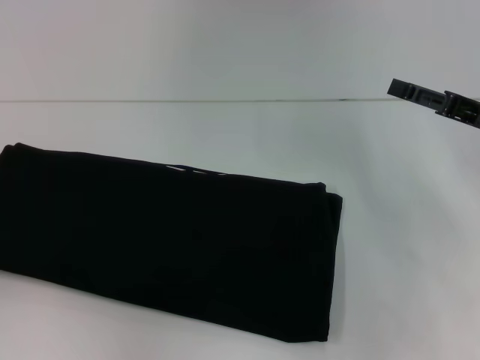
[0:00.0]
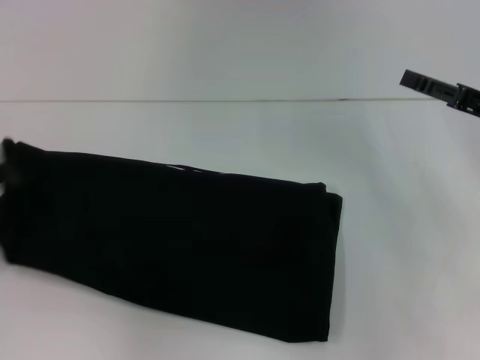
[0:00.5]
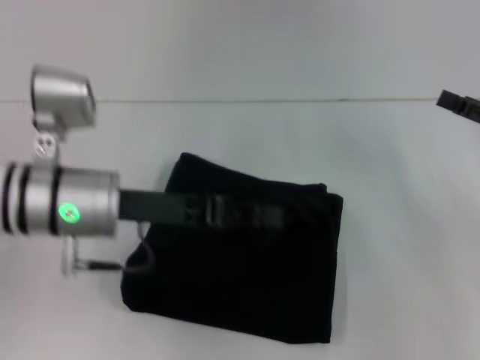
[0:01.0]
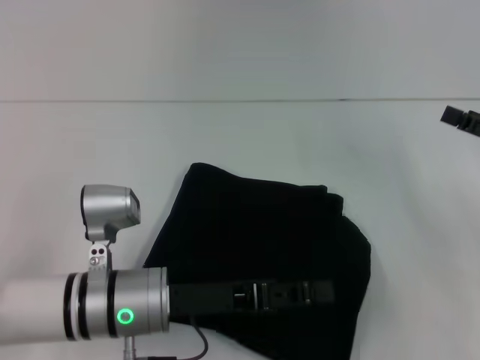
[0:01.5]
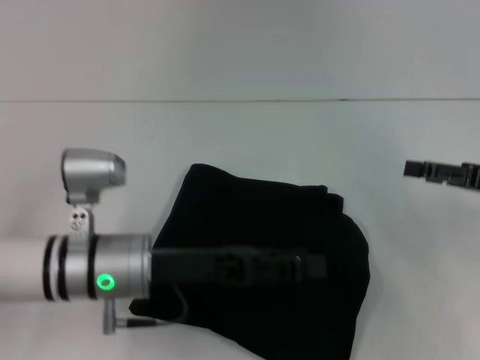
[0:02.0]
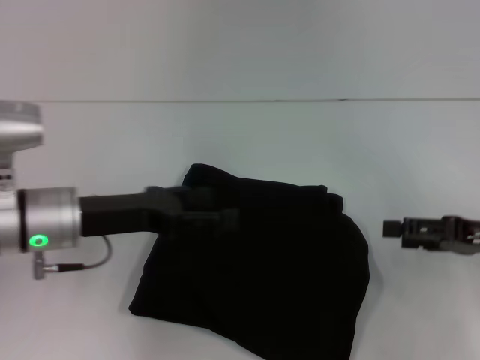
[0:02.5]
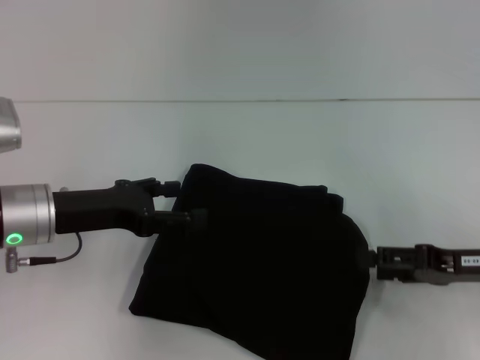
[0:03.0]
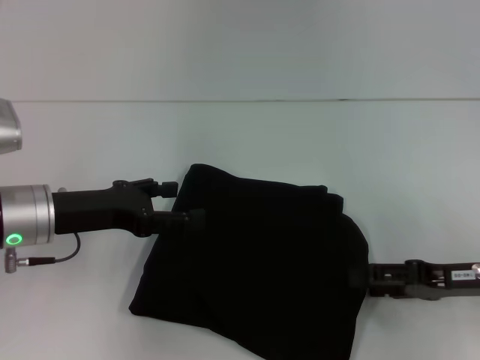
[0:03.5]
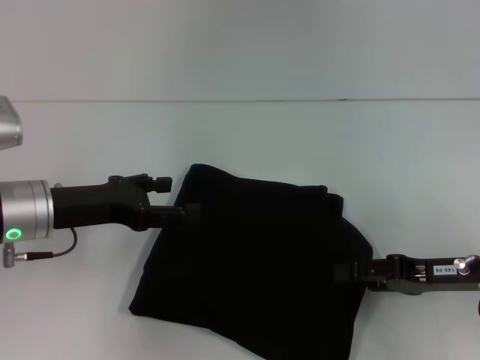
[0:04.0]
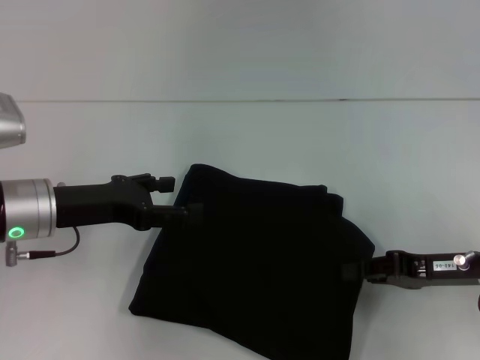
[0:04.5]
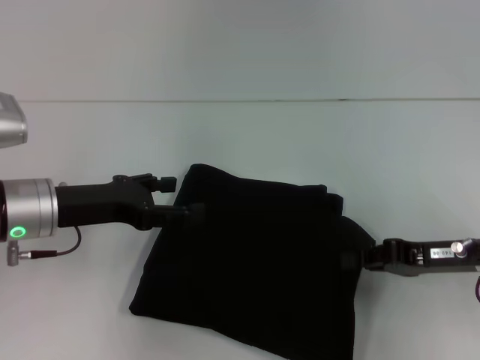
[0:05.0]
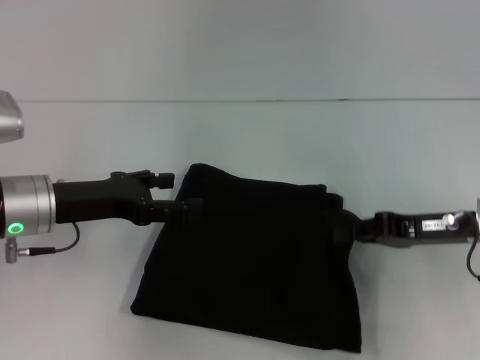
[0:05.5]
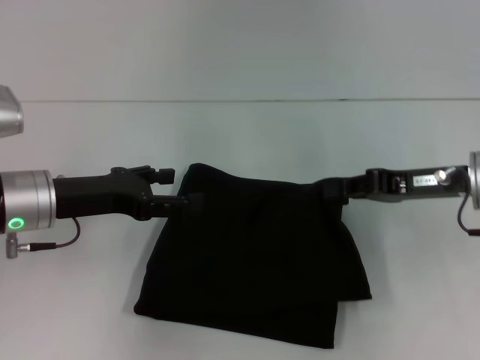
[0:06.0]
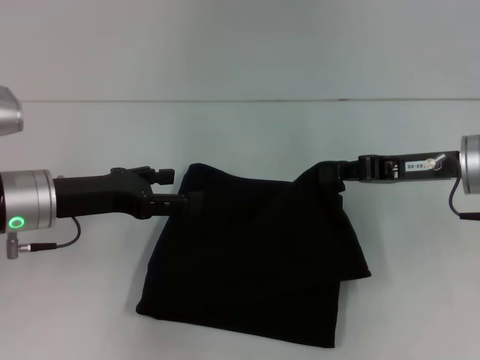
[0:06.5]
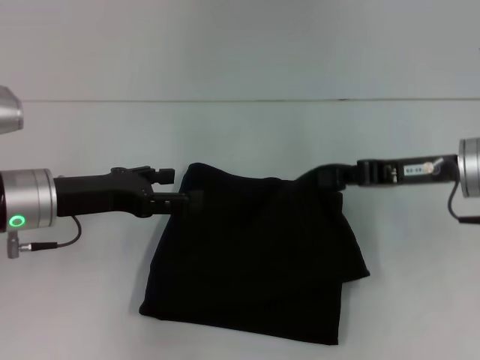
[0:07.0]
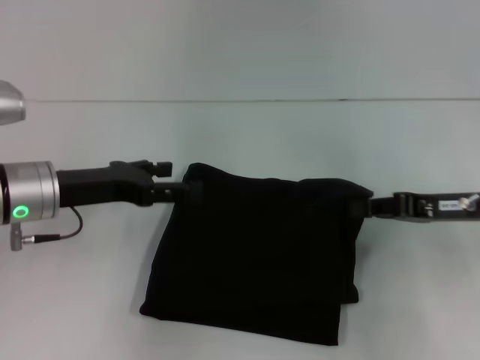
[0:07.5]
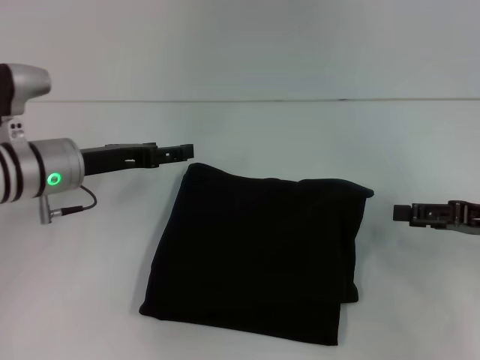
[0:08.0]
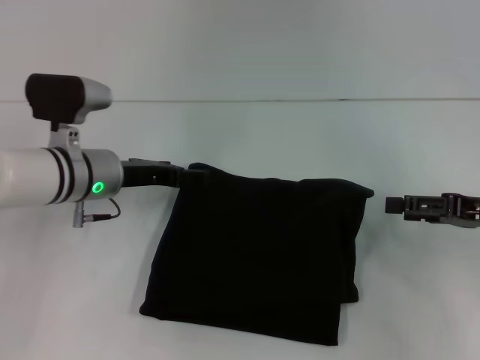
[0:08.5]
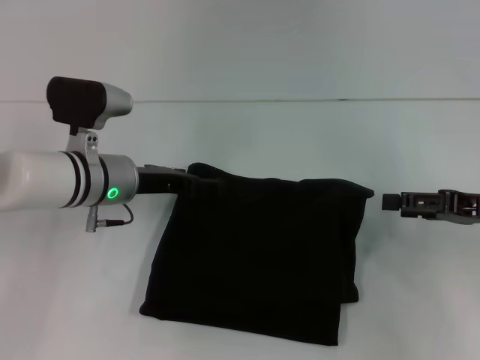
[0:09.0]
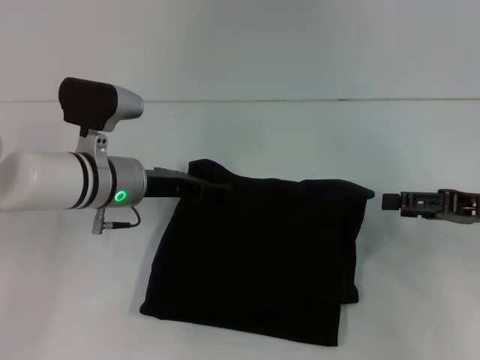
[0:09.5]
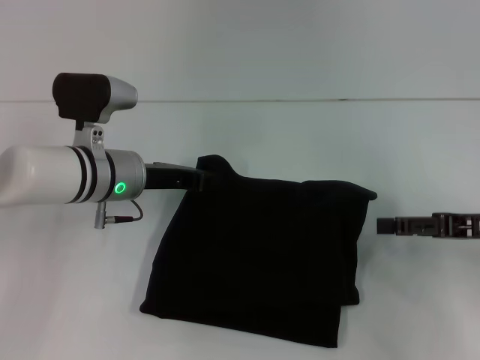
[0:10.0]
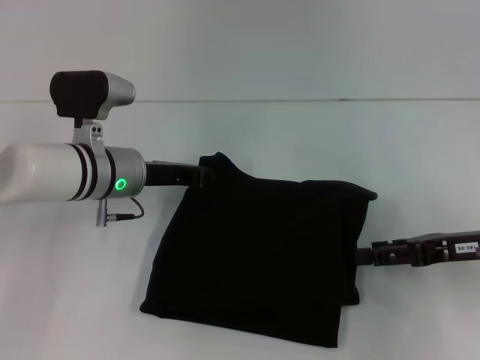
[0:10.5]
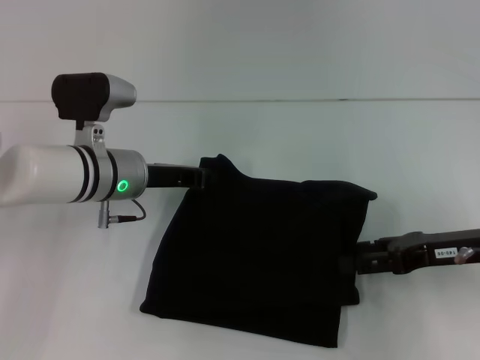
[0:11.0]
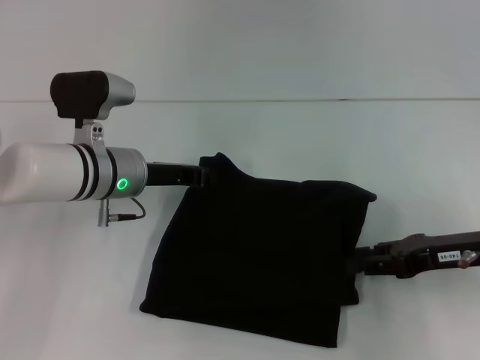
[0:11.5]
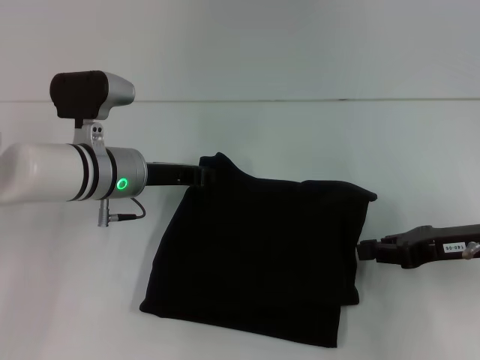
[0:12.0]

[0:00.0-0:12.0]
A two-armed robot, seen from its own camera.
0:00.0 to 0:02.0: The left gripper is displaced to the right by roughly 25 cm, and opens up.
0:02.0 to 0:04.0: The two grippers go about 10 cm to the left. The left gripper opens.
0:04.0 to 0:06.0: The right gripper shifts about 10 cm forward and upward, and closes its fingers.
0:06.0 to 0:08.0: The left gripper changes place by approximately 5 cm; the right gripper moves to the right, some 10 cm, and opens.
0:08.0 to 0:10.0: The right gripper opens. Meanwhile the left gripper shifts about 5 cm to the right, and closes.
0:10.0 to 0:12.0: The left gripper closes up, while the right gripper closes.

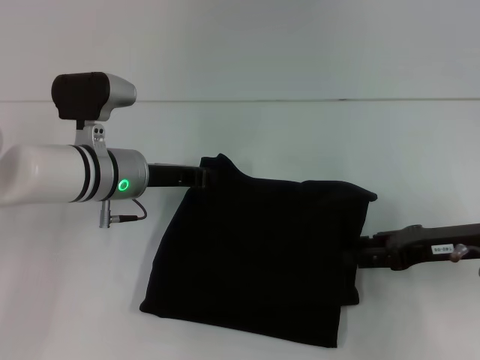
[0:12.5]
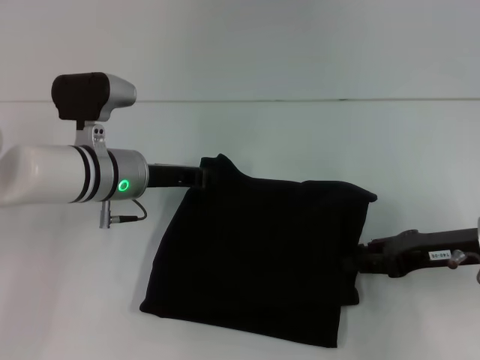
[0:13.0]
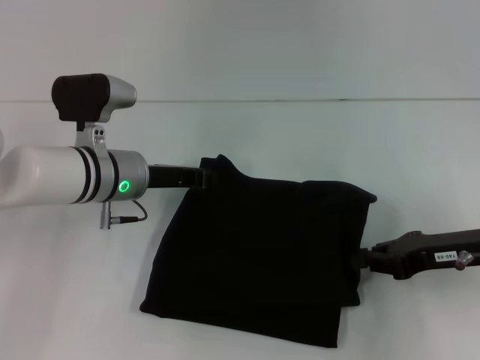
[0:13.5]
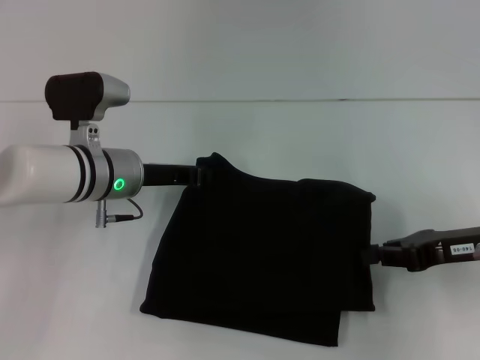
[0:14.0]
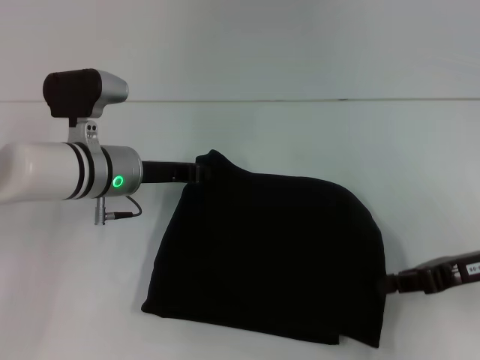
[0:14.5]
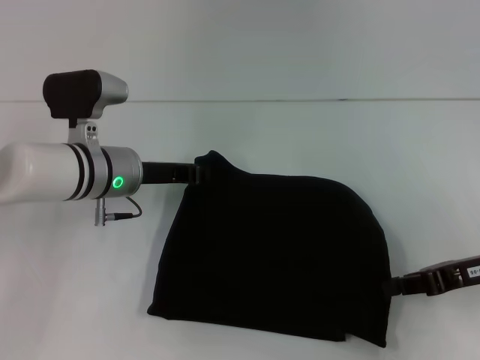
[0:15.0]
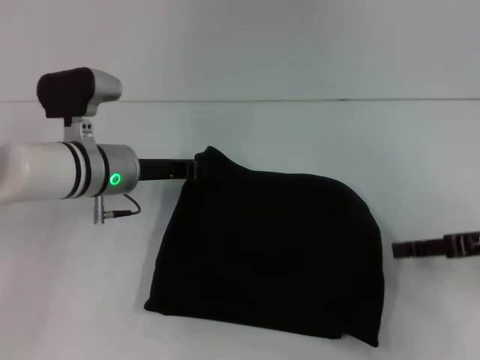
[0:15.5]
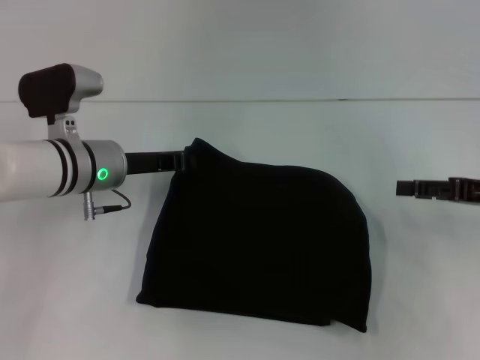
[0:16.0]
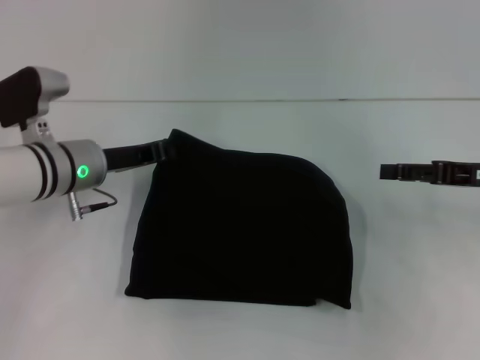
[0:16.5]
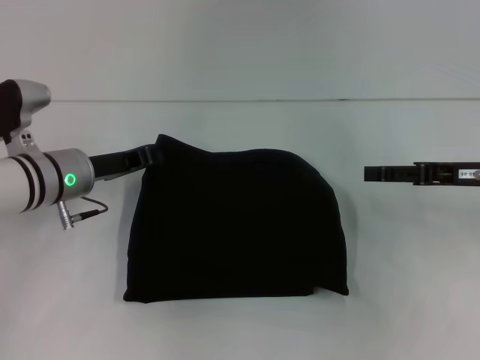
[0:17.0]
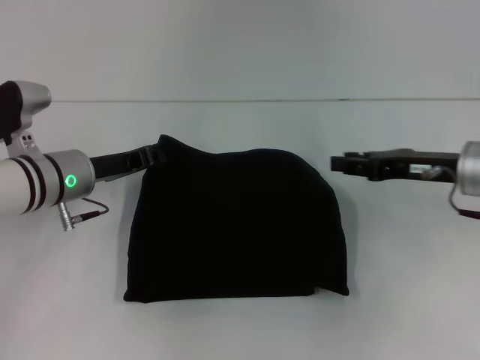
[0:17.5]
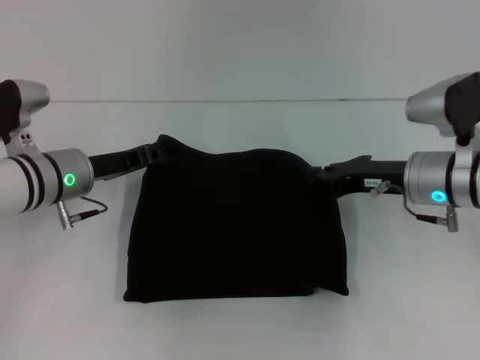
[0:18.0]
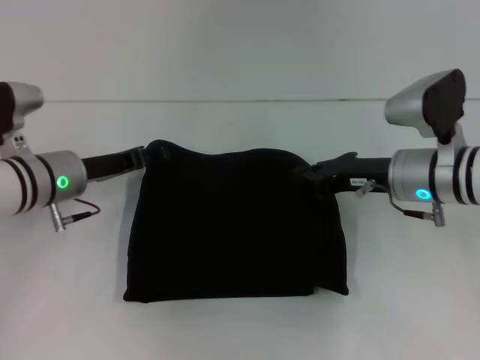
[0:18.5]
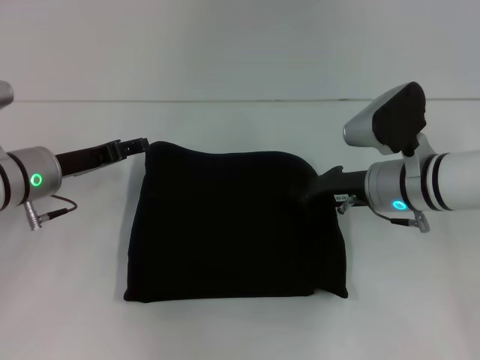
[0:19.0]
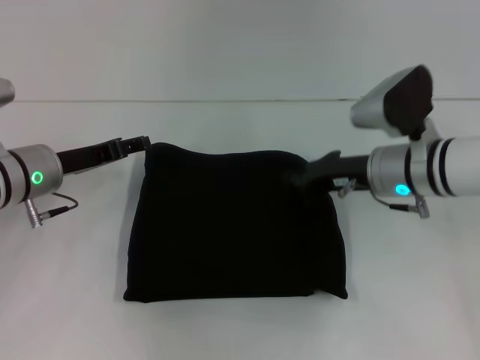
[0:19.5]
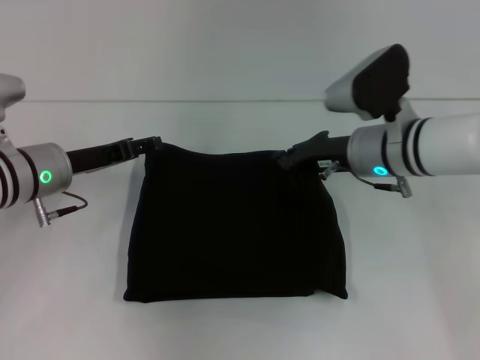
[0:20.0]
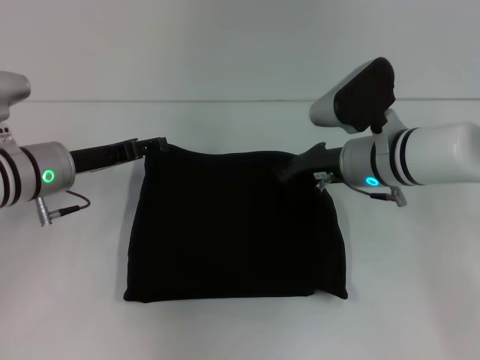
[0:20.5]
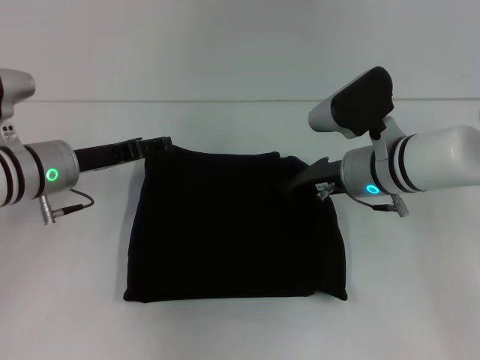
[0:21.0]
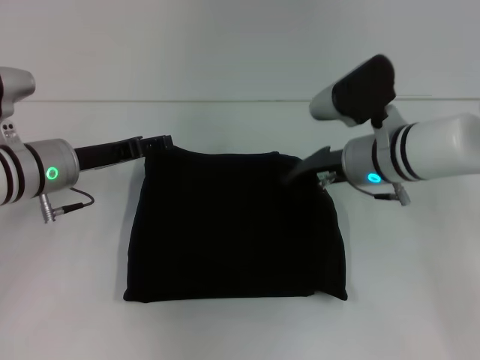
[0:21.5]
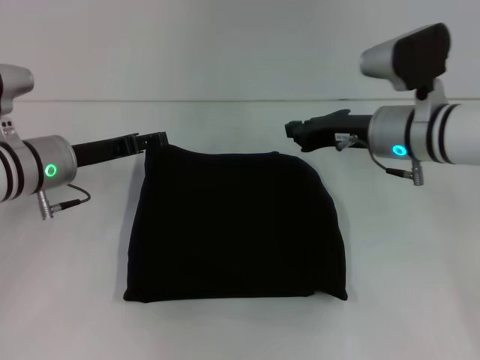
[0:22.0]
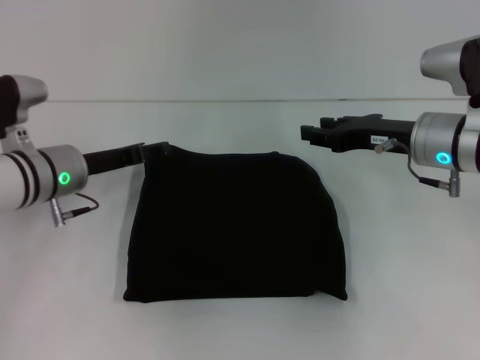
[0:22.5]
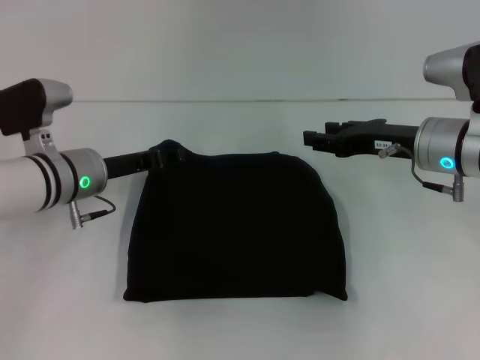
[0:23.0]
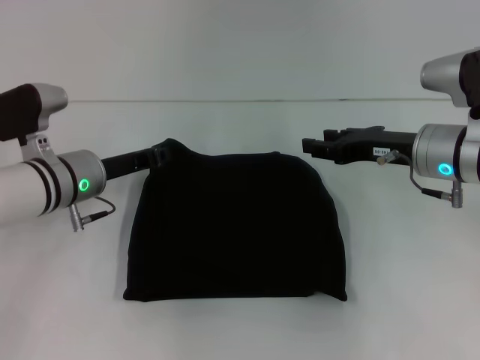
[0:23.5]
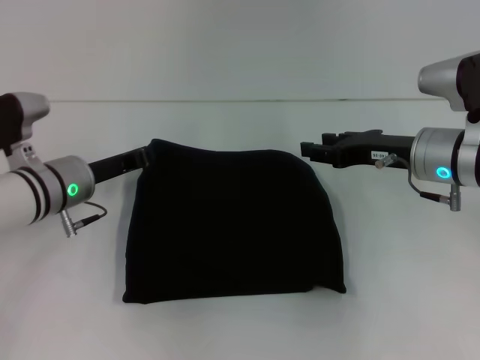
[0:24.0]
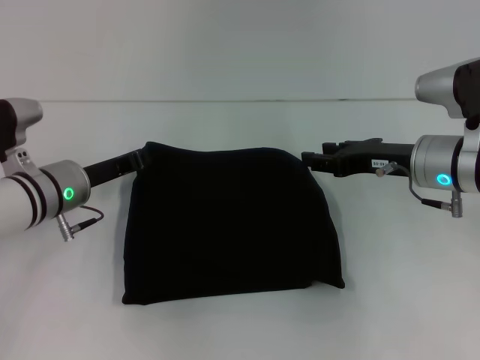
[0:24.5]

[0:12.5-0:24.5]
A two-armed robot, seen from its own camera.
0:12.5 to 0:14.5: The grippers stay close to where they were, moving slightly.
0:14.5 to 0:16.5: The right gripper ends up about 5 cm from where it was, and opens up.
0:16.5 to 0:18.5: The right gripper travels to the left by approximately 10 cm, and closes its fingers.
0:18.5 to 0:20.5: The right gripper is displaced to the left by some 5 cm.
0:20.5 to 0:22.5: The right gripper moves to the right, some 5 cm.
0:22.5 to 0:24.5: The left gripper closes its fingers.

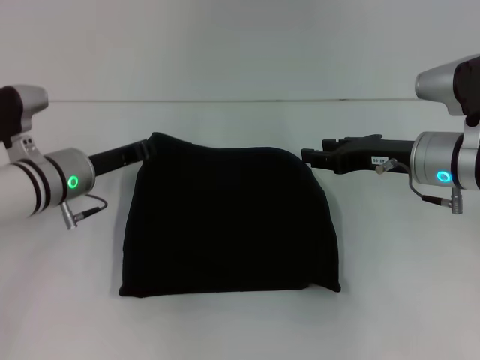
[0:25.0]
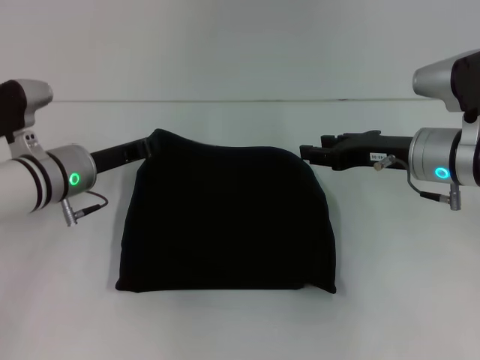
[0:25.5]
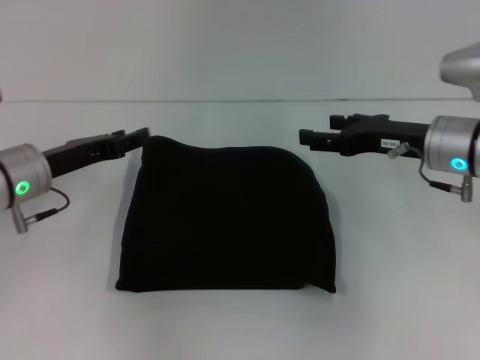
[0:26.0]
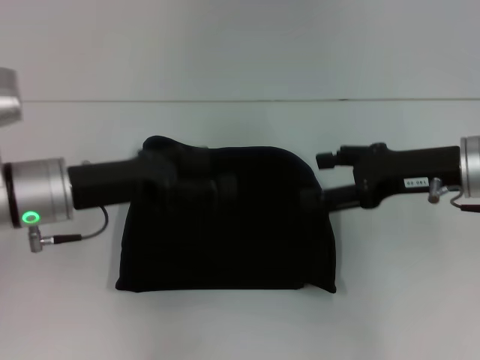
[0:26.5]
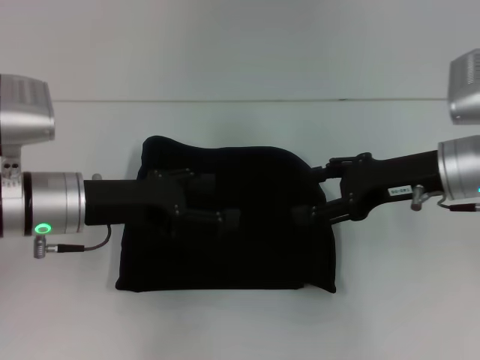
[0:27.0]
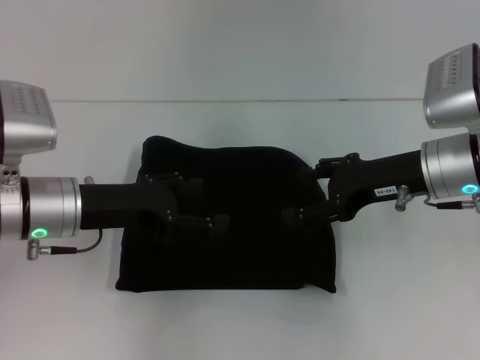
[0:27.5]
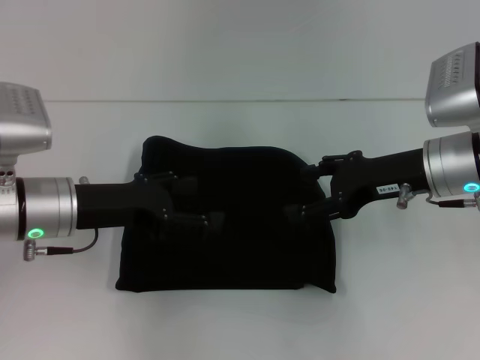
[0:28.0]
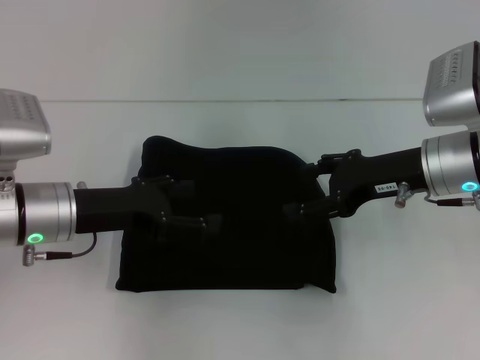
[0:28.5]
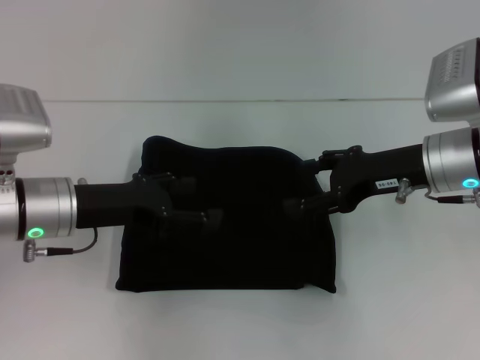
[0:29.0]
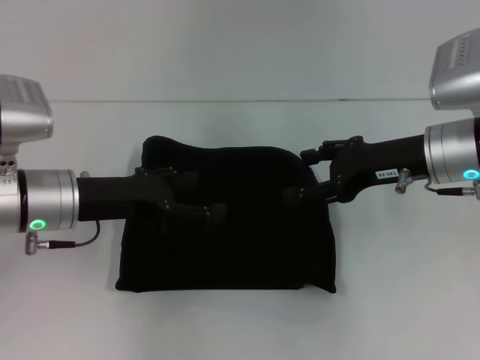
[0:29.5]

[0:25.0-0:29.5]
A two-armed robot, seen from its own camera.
0:25.0 to 0:27.0: The left gripper heads backward, covering roughly 5 cm, and opens up, while the right gripper opens its fingers.
0:27.0 to 0:29.5: There are only small adjustments of the grippers.
